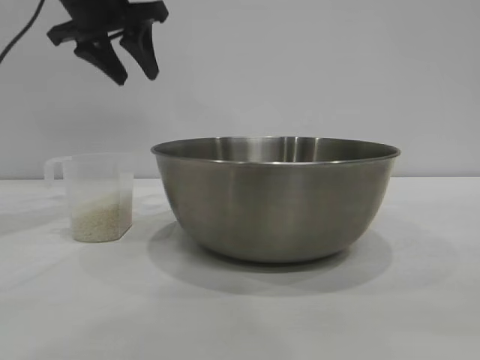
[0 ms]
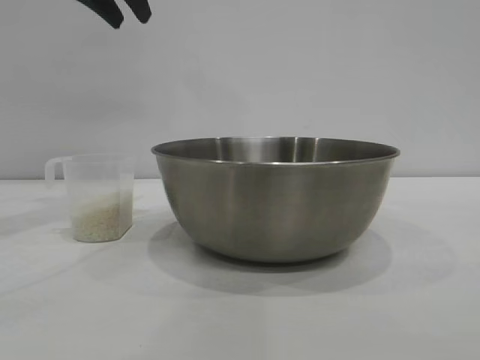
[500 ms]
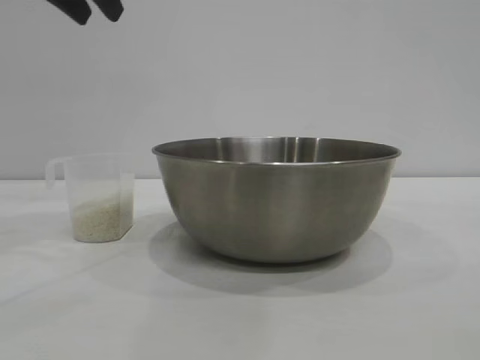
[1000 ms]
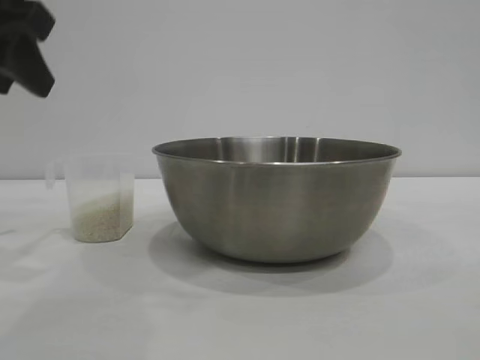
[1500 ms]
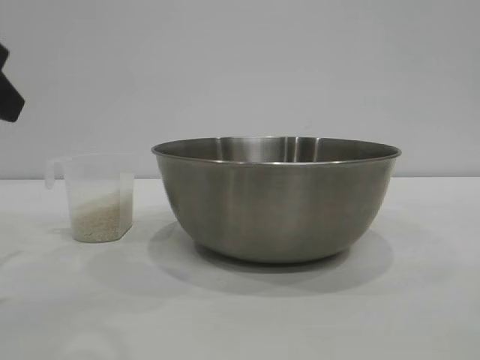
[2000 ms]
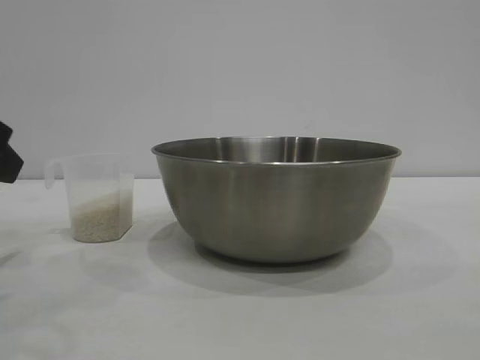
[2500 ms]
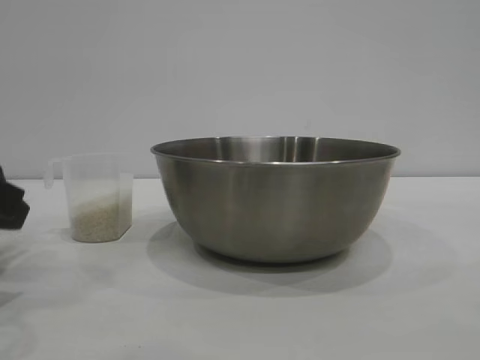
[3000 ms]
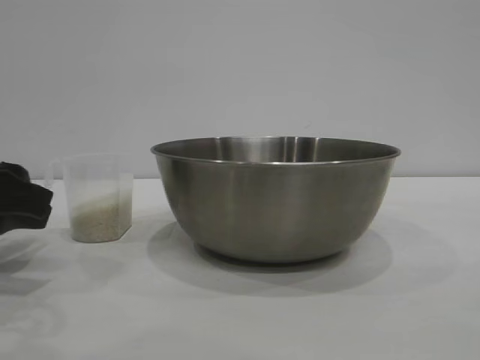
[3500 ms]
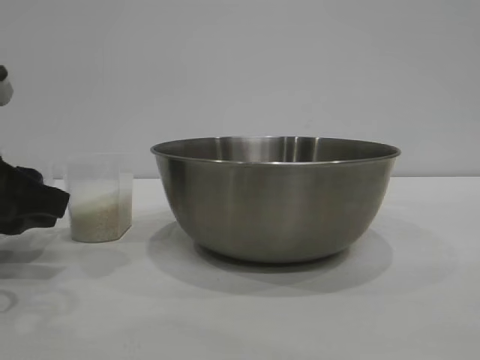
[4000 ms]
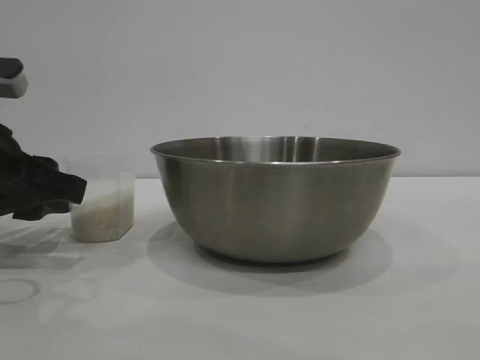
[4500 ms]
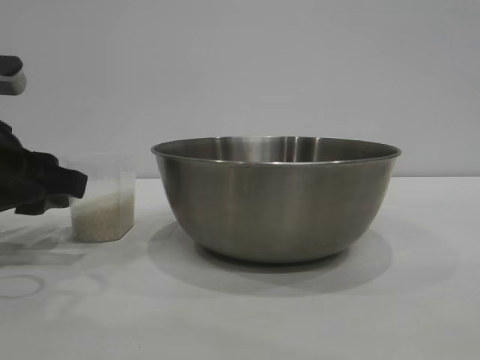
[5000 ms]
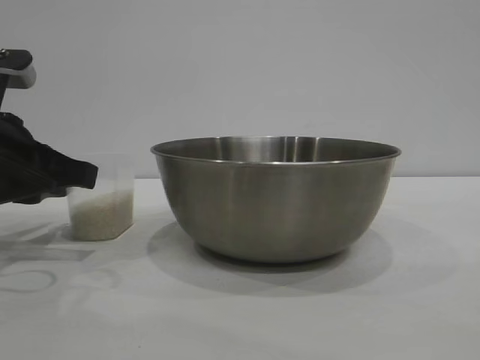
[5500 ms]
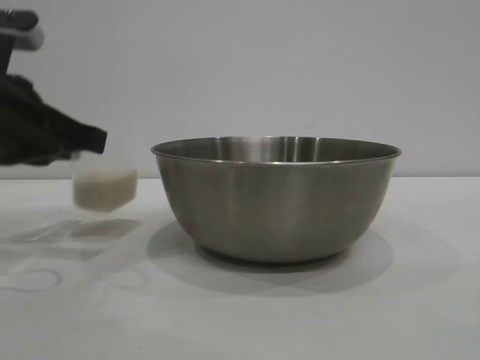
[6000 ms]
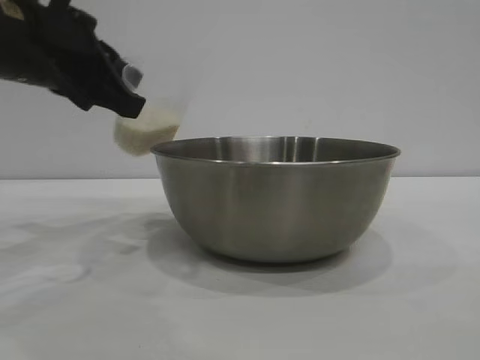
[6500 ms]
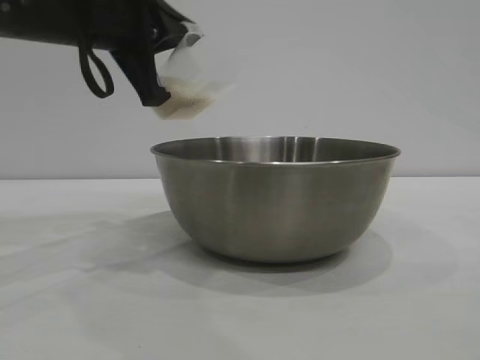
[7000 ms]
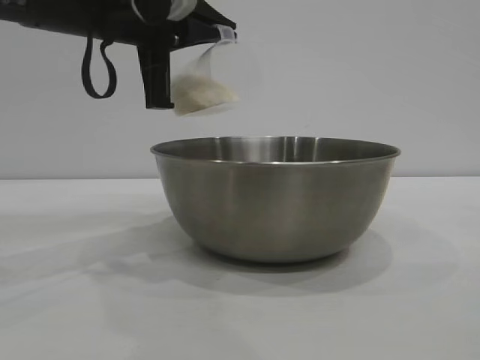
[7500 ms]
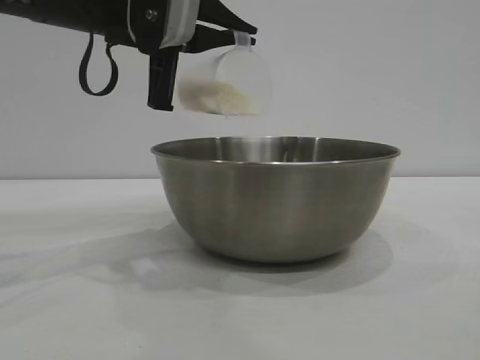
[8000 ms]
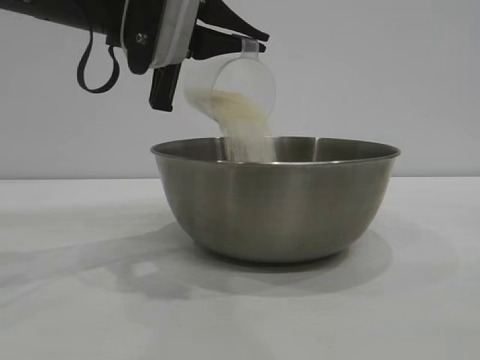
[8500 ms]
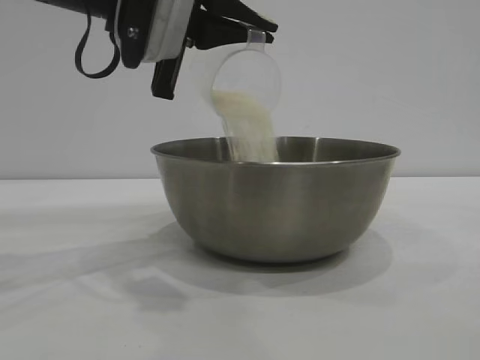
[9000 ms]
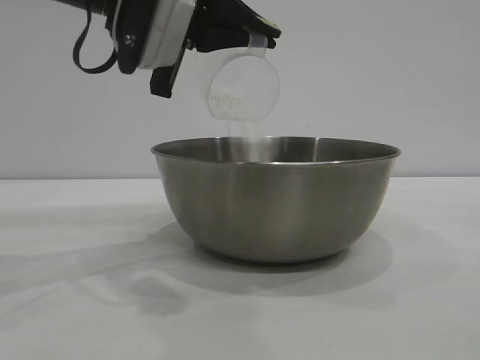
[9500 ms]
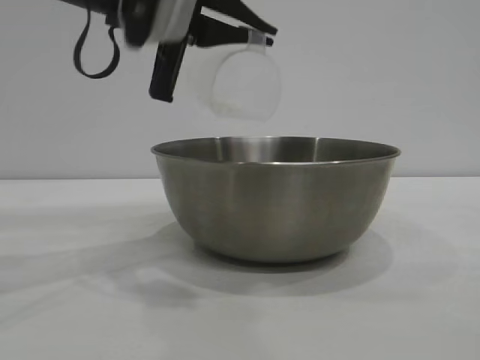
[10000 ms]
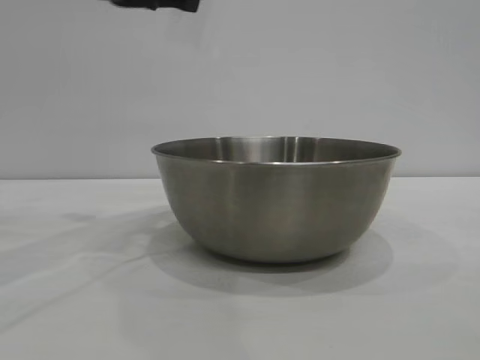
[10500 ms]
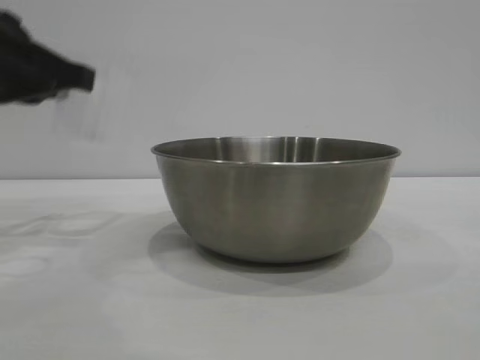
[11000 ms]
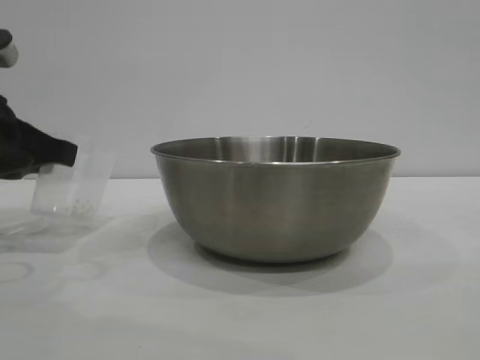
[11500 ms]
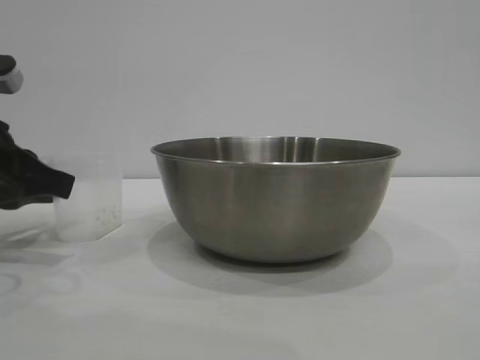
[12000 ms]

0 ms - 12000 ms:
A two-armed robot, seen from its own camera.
Task of the whole recording: the right gripper grasp the rice container and place it in the center of the table, the left gripper grasp the rice scoop and pour the rice into the rice container.
Step, 0 ms - 5500 ms: Pick up the cup with rice in it with the left gripper.
Step, 6000 ms - 10000 ms: Pour the rice from the cup into the bowl with the left gripper.
